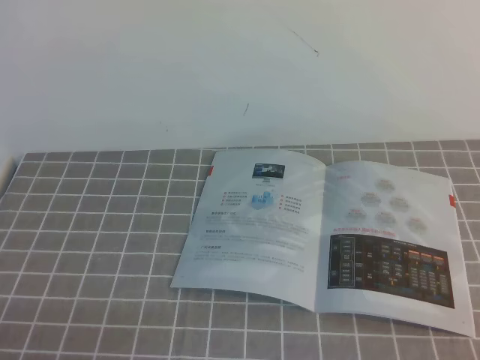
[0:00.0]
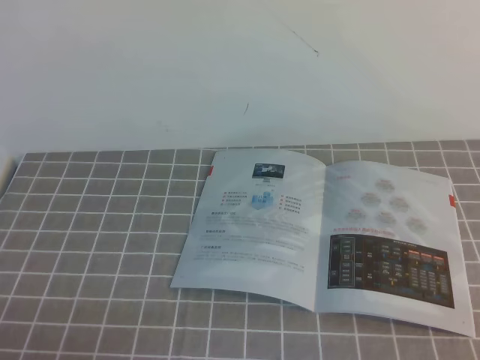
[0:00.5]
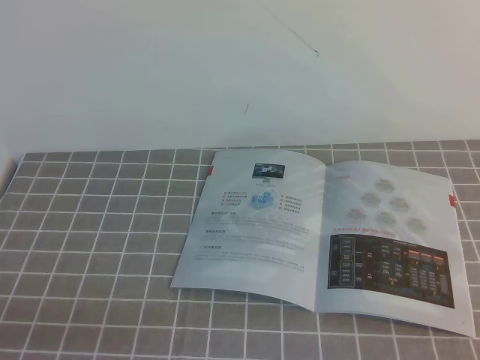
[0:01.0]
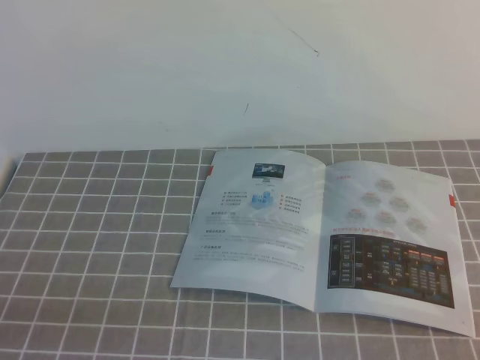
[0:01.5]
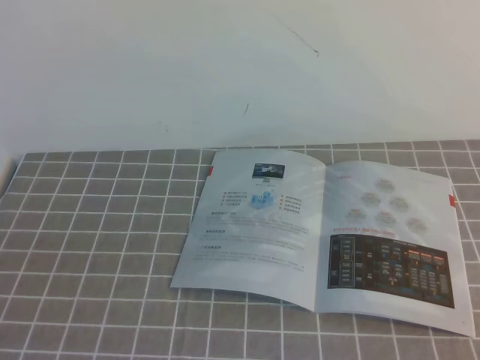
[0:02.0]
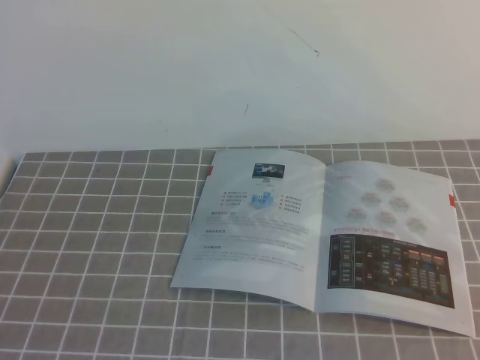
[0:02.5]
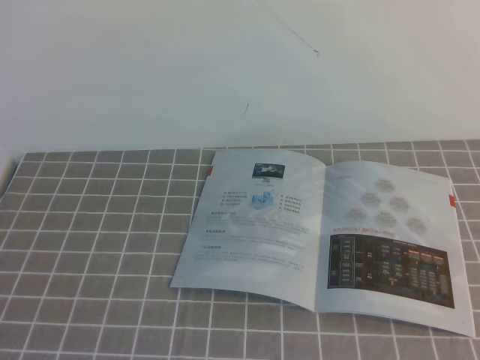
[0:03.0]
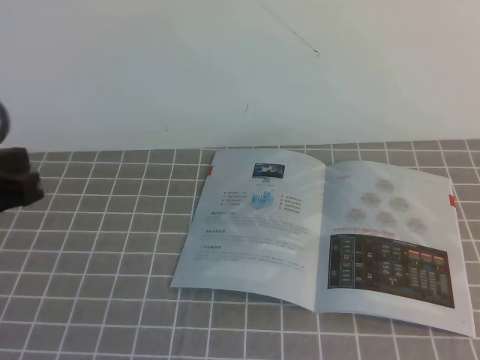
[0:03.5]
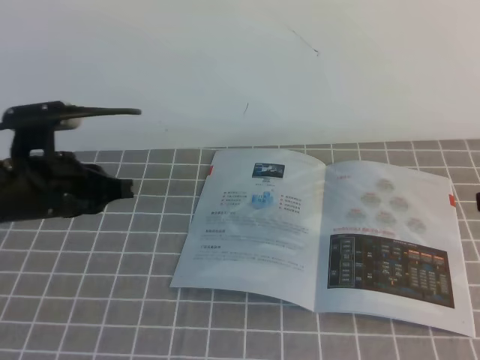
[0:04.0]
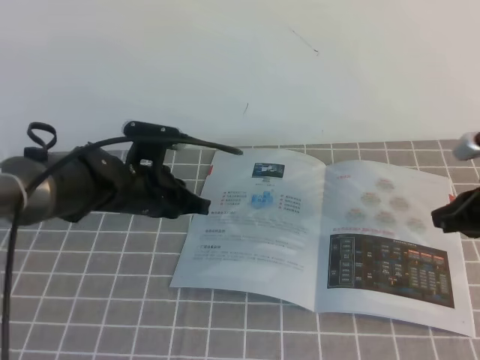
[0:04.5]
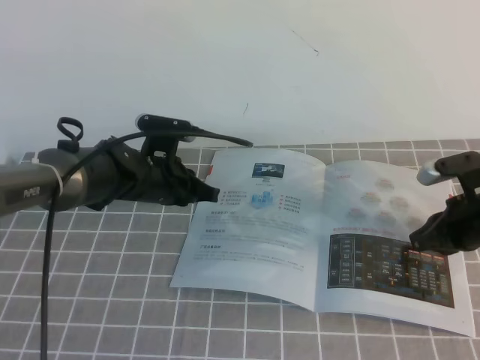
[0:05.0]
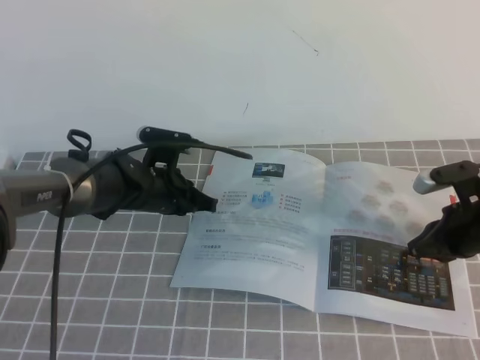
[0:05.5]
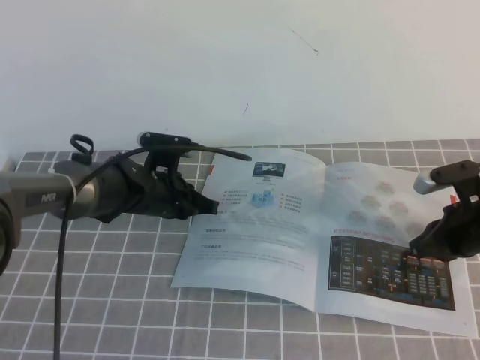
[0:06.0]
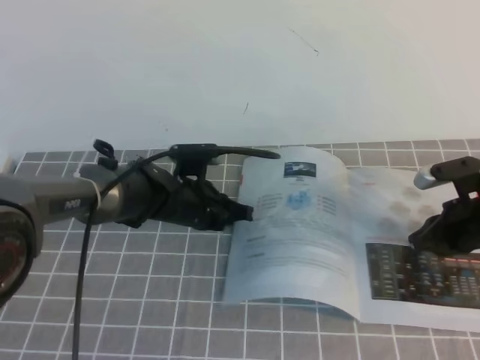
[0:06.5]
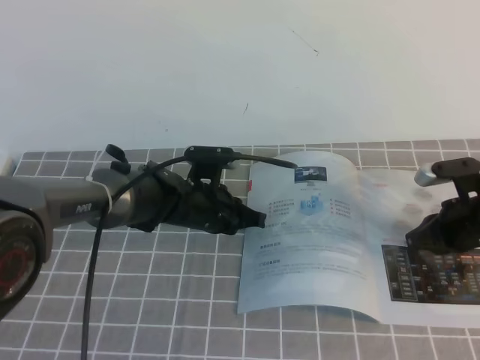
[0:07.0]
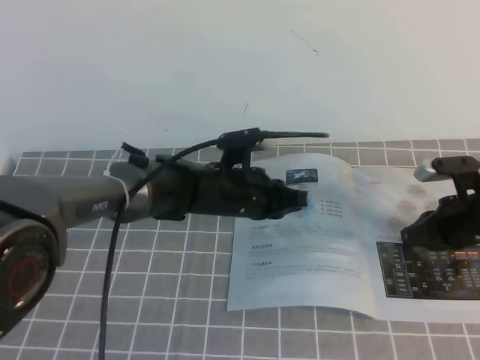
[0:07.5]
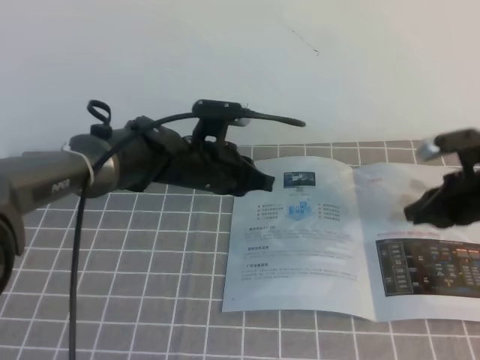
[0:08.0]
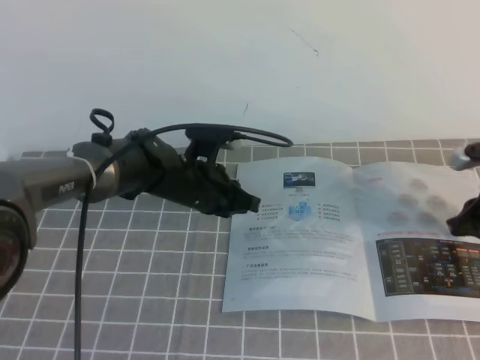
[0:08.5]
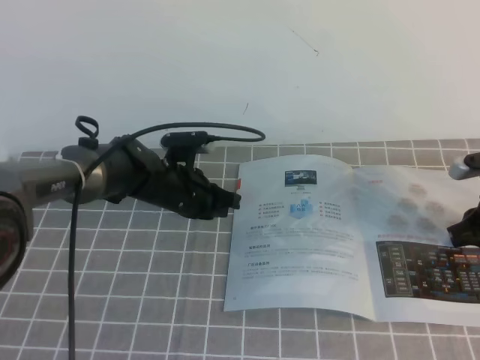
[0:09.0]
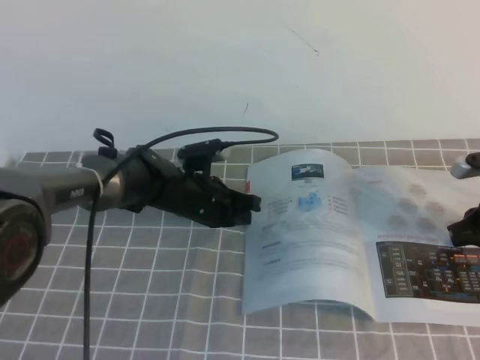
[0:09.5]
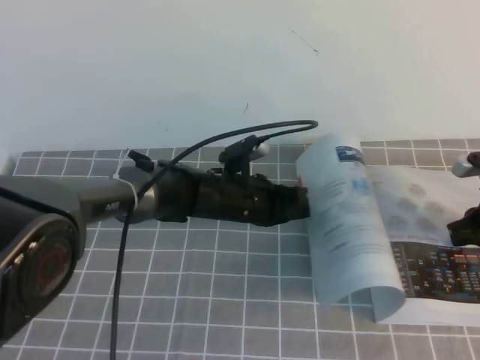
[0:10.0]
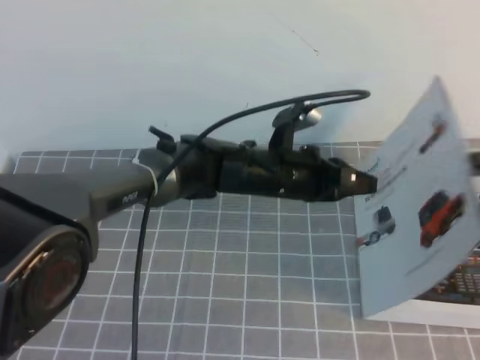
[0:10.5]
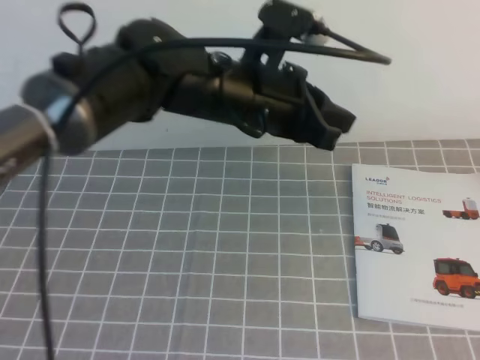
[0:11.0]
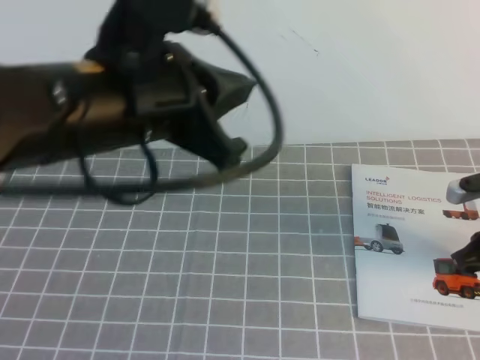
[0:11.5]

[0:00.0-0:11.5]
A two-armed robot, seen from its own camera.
Task of the whole recording: on the grey tablecloth, hold the book with one hand and close it with the other.
0:02.0 to 0:04.0: The left gripper heads forward, covering about 25 cm.
0:04.0 to 0:06.0: The right gripper travels downward and forward by roughly 20 cm. Meanwhile the left gripper moves downward, forward and to the right, approximately 20 cm.
0:06.0 to 0:07.5: The left gripper heads to the right, covering about 10 cm.
0:07.5 to 0:09.5: The left gripper changes place by some 5 cm, while the right gripper goes about 5 cm to the right.
0:09.5 to 0:11.5: The right gripper goes upward and returns, approximately 10 cm each way; the left gripper goes some 30 cm upward and backward.

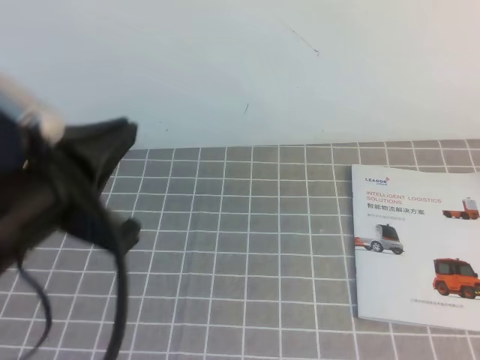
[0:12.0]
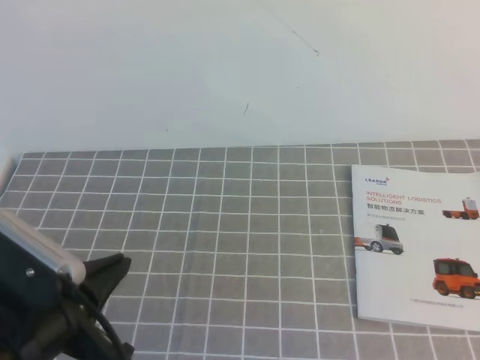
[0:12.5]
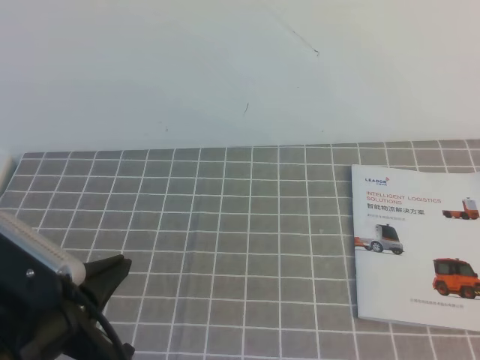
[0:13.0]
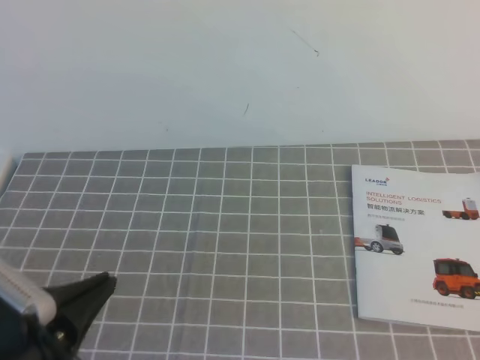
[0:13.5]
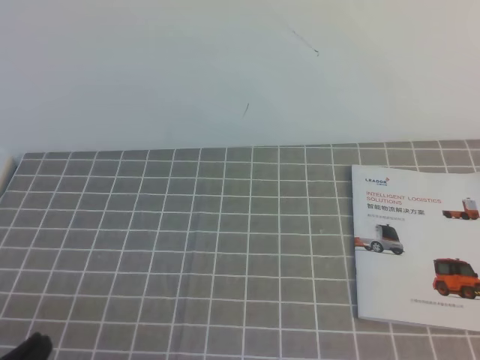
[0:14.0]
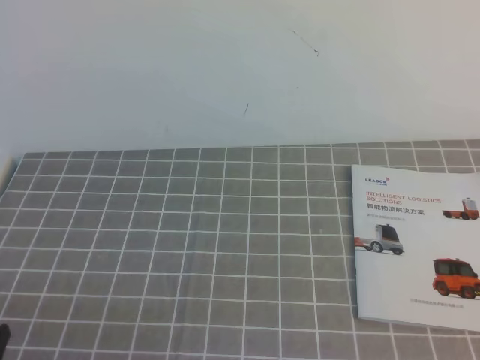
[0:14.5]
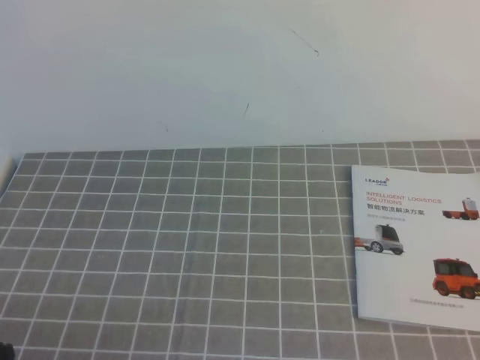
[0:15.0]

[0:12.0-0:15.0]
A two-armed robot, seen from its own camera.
Task of the whole recording: on the grey tablecloth, hold the book with one hand and close it with the other.
Step, 0:12.0 to 0:15.0: Close the open book.
0:12.0 to 0:13.5: The right gripper shifts some 20 cm backward. The left gripper shifts some 10 cm downward and backward.
0:13.5 to 0:15.0: The left gripper moves backward, downward and to the left, some 10 cm.
